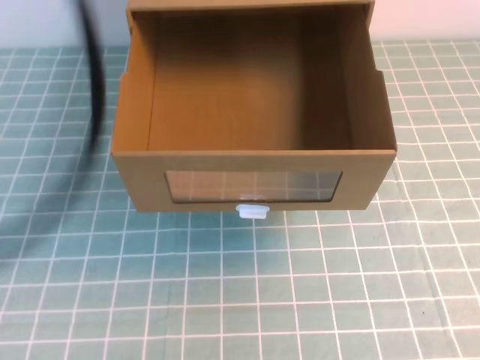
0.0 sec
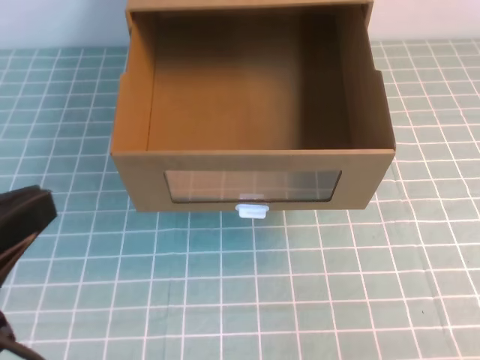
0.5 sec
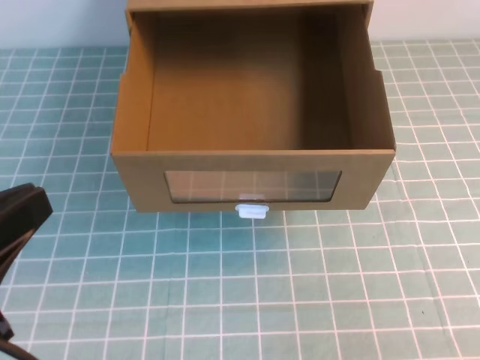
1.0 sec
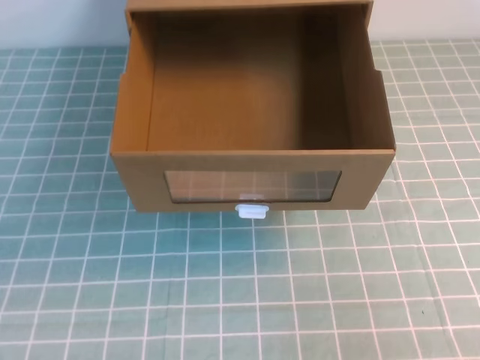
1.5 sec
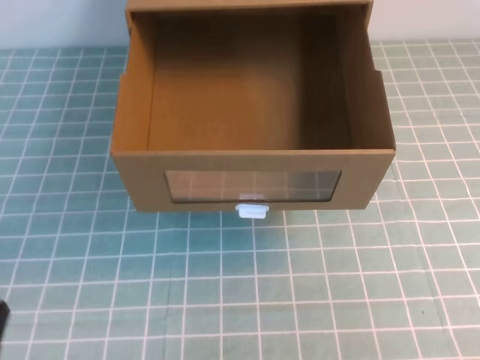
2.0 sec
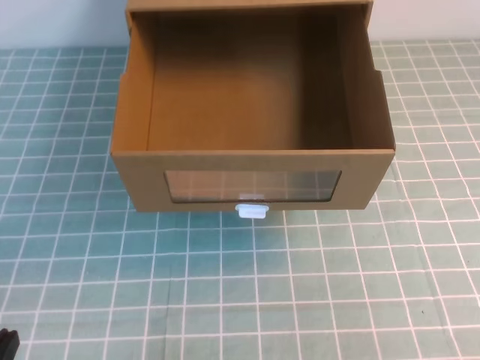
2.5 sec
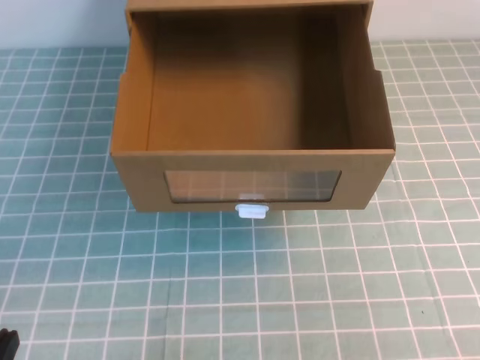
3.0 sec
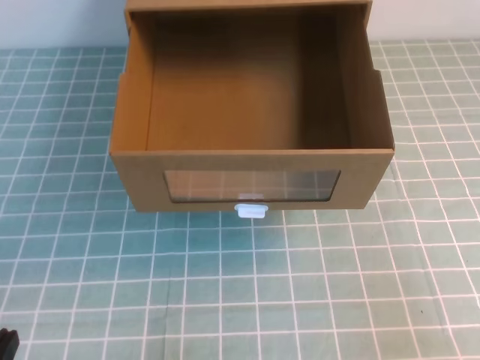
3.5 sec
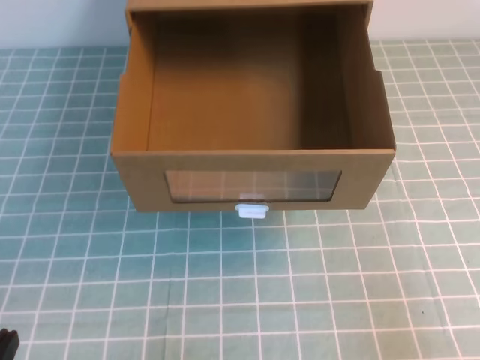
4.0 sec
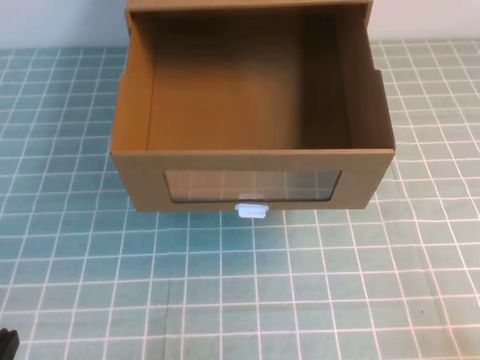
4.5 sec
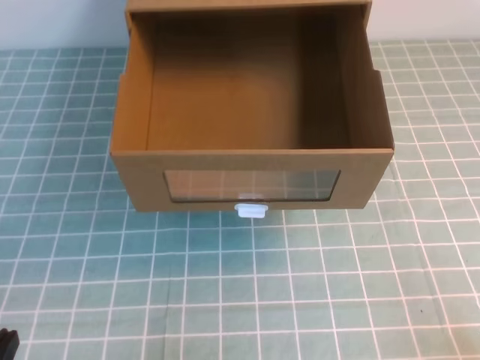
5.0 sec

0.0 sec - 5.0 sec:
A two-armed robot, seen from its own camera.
Task of the whole recording: open the shoebox on the cyan tablecloth.
Step, 0.0 sec - 5.0 sec: Open the shoe box.
0.0 sec - 2.5 sec: The left gripper goes some 35 cm downward; the right gripper travels downward and to the right by some 15 cm.
2.5 sec - 5.0 sec: The right gripper heads downward, covering about 15 cm.

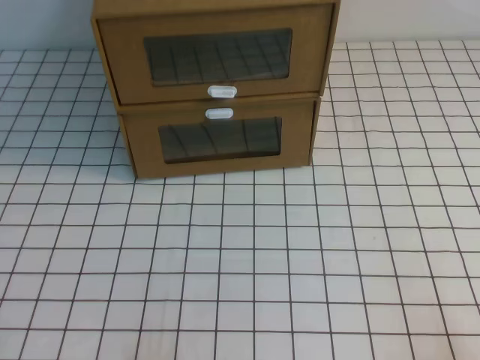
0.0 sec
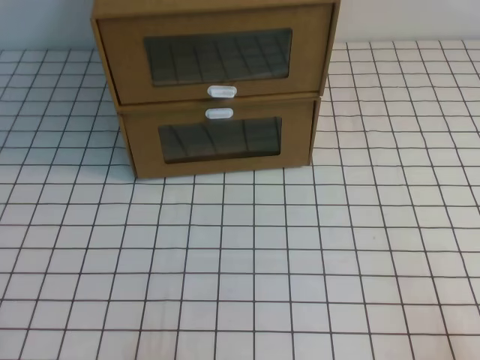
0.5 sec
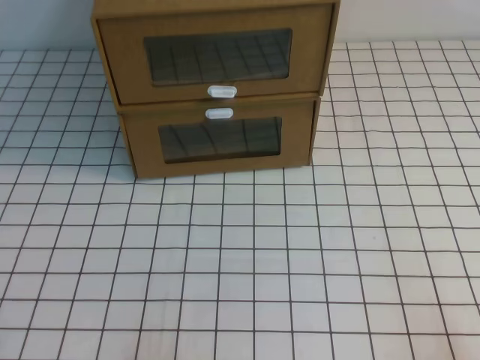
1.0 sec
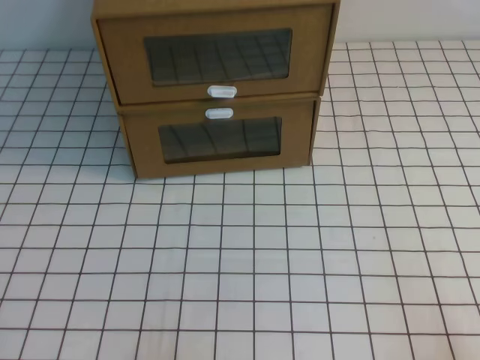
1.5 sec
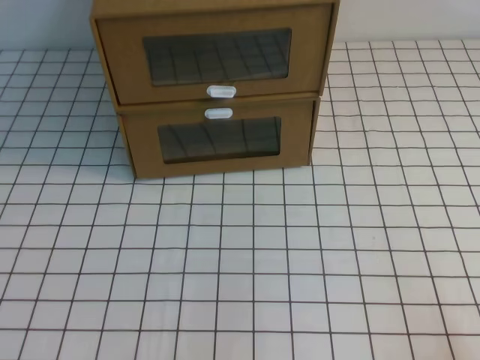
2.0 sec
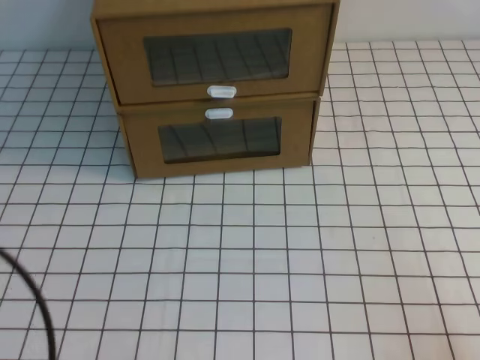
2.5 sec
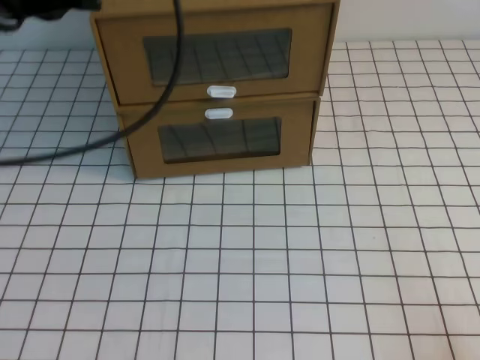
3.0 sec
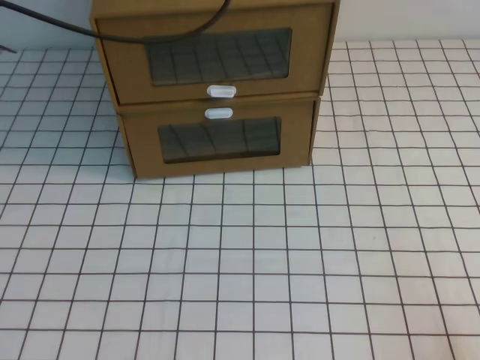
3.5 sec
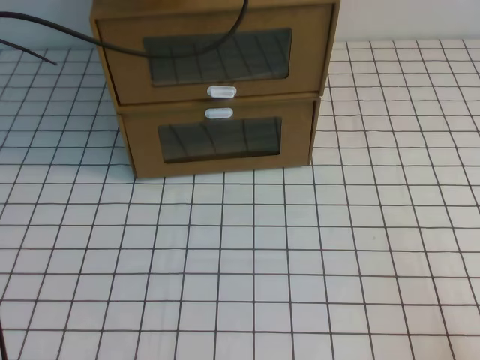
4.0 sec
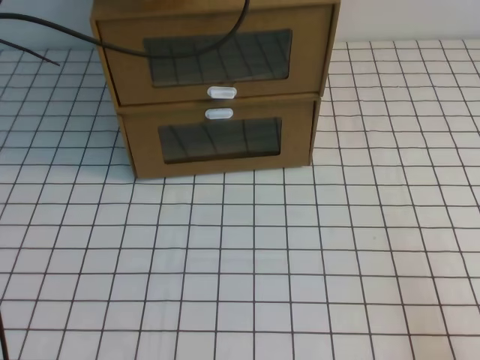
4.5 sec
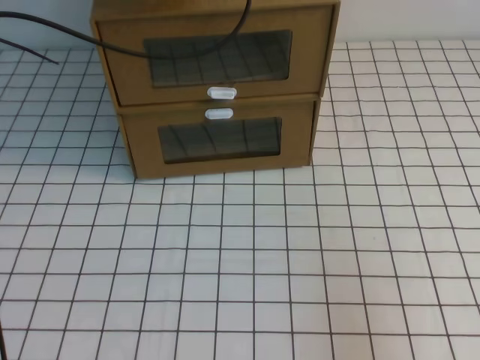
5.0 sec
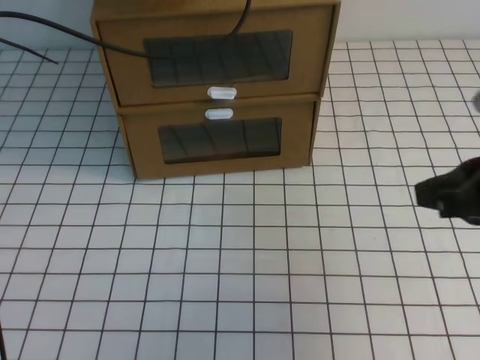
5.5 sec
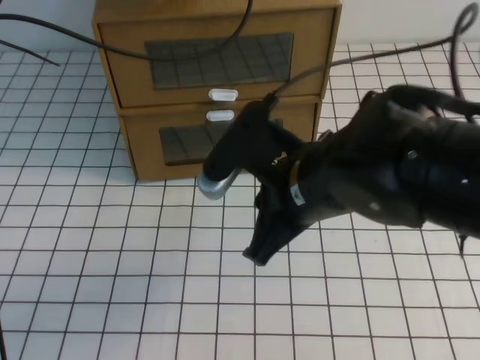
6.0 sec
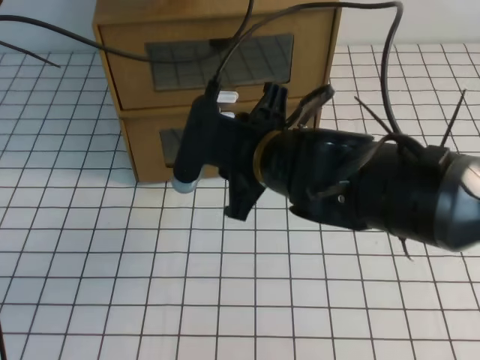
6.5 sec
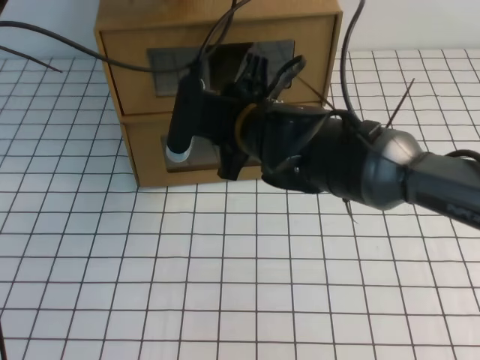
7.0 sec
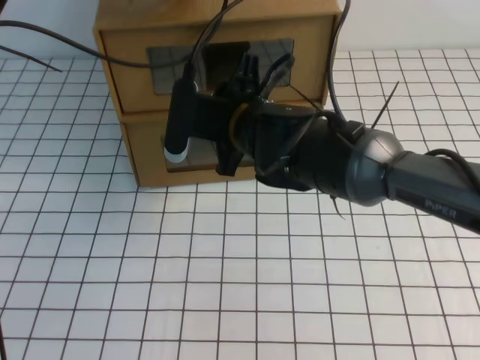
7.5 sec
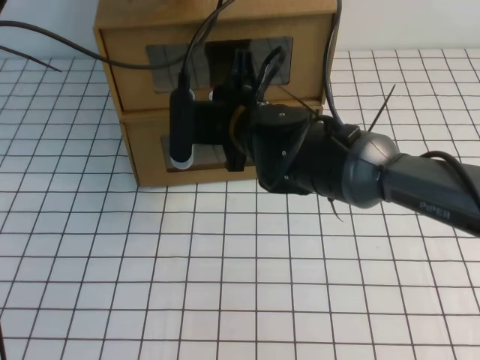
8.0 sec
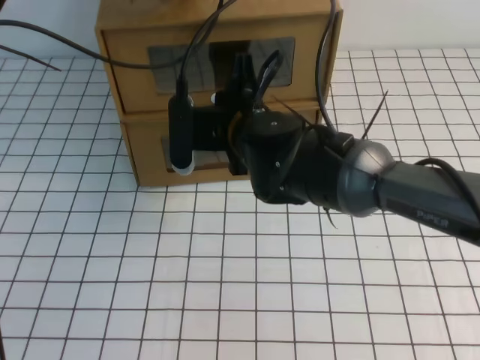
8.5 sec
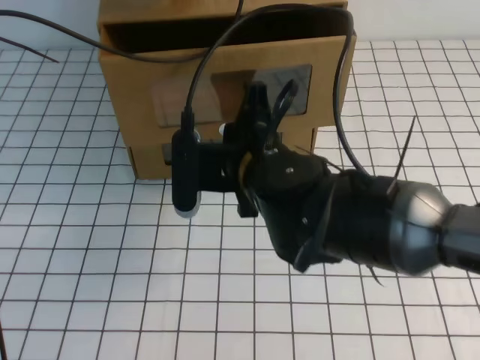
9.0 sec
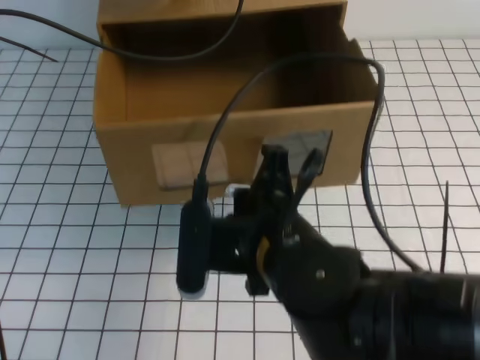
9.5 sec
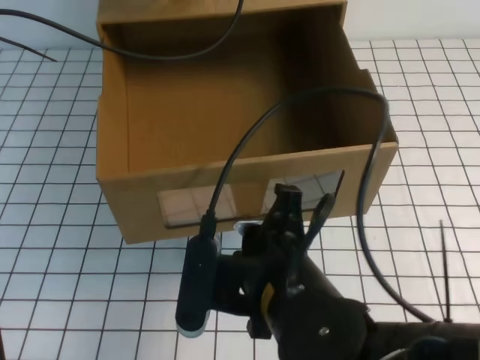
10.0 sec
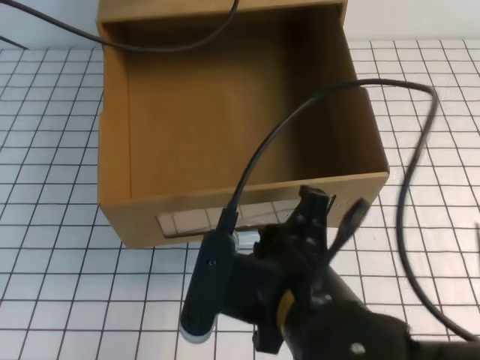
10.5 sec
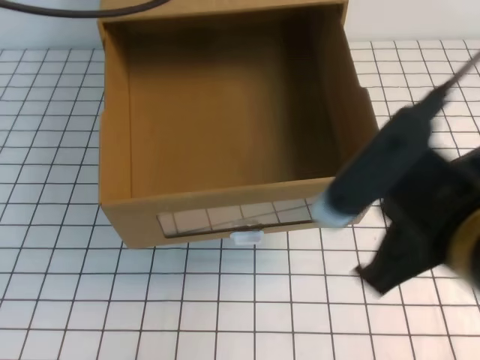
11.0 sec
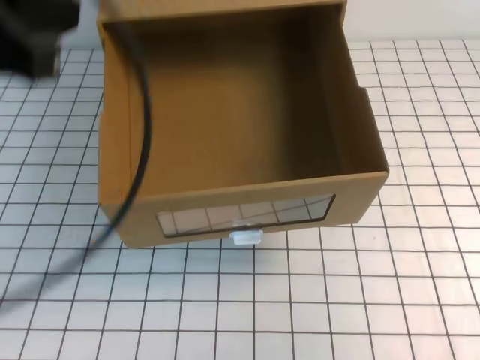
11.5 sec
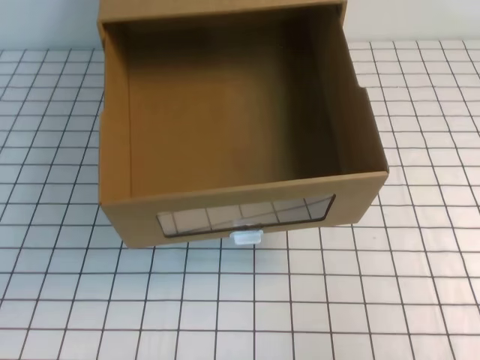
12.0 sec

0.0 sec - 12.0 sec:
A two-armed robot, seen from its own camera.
Task of the whole recording: open the shoebox on the white tablecloth.
2.0 sec - 4.0 sec: The left gripper shifts approximately 40 cm forward and upward.
4.0 sec - 6.0 sec: The right gripper shifts approximately 35 cm to the left, forward and upward.
6.0 sec - 8.0 sec: The right gripper travels forward and to the left by about 15 cm, and opens its fingers.
8.0 sec - 10.0 sec: The right gripper heads backward, covering about 20 cm.
10.0 sec - 12.0 sec: The right gripper is displaced to the right by approximately 25 cm. Meanwhile the left gripper heads backward, covering approximately 40 cm.

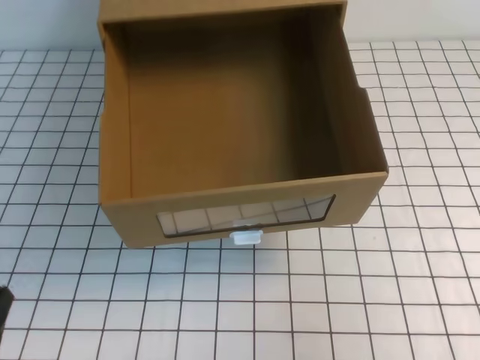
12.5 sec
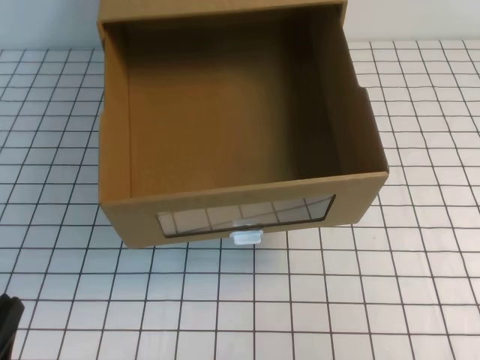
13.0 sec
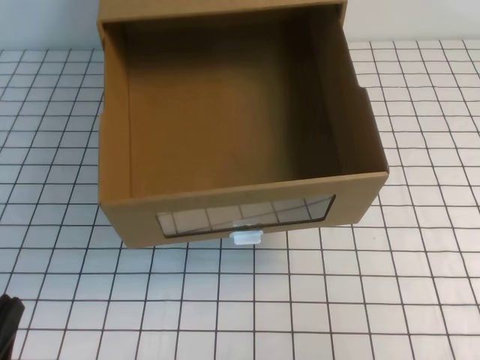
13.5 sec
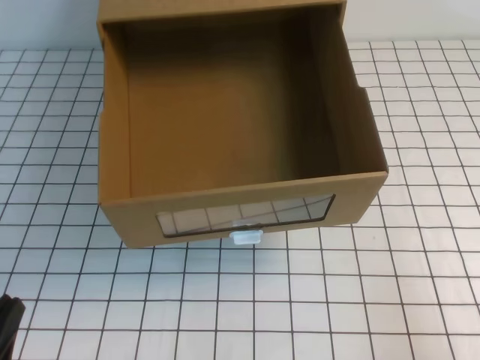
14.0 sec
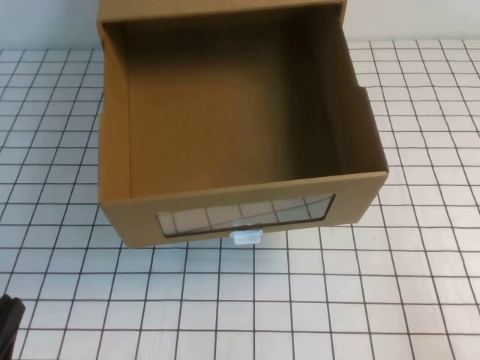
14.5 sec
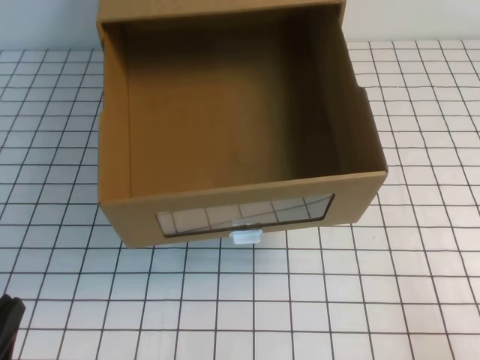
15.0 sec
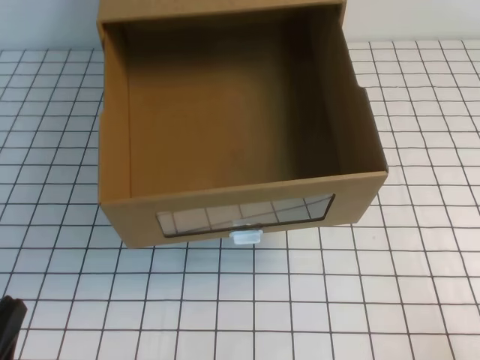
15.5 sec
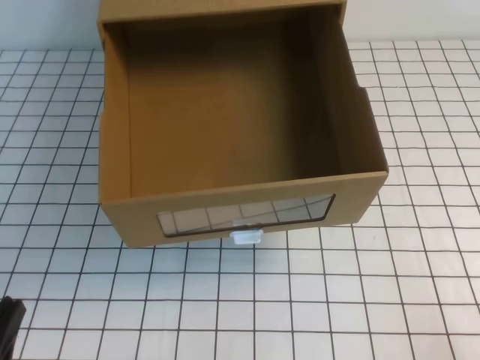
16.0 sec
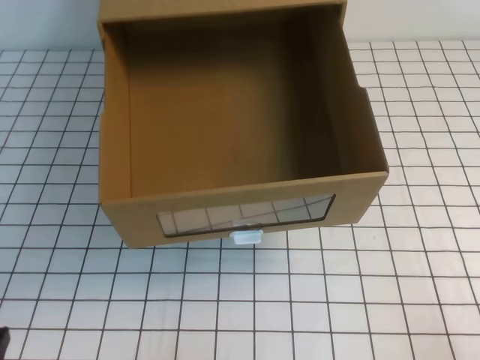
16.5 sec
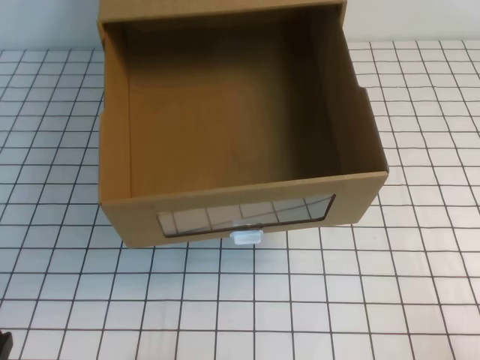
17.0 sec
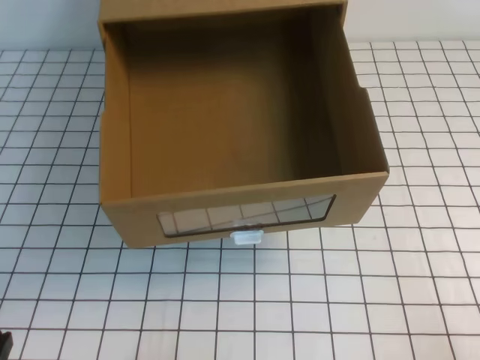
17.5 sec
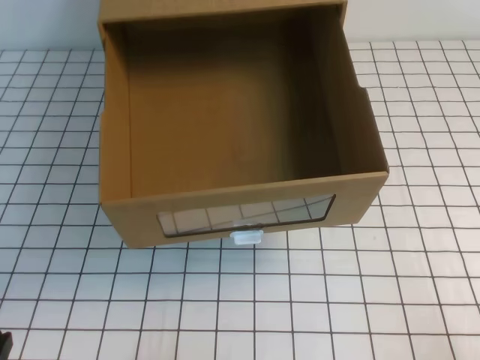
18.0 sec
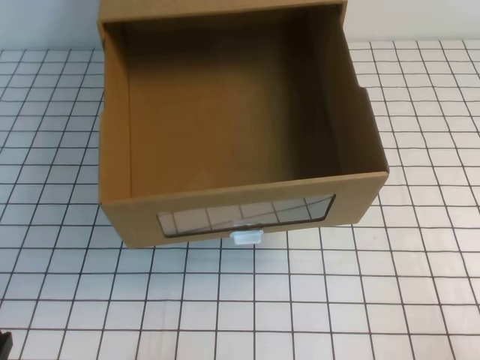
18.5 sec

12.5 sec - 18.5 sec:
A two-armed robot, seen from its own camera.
Task of the whole recording: open the shoebox on the white tablecloth.
12.5 sec - 14.5 sec: The right gripper moves downward, backward and to the right, about 15 cm.

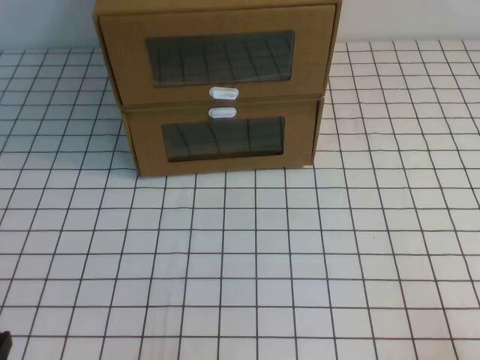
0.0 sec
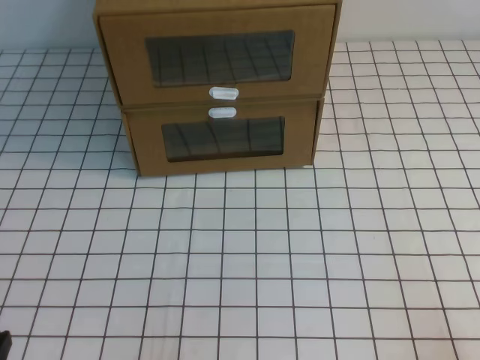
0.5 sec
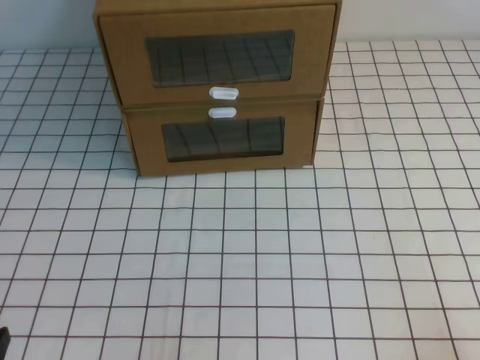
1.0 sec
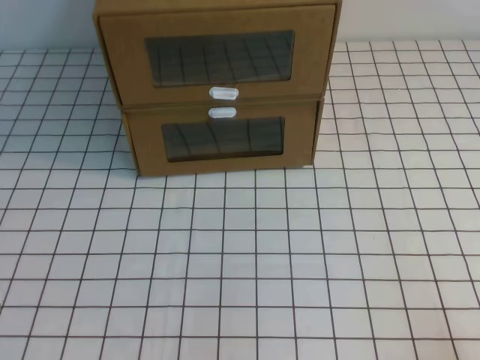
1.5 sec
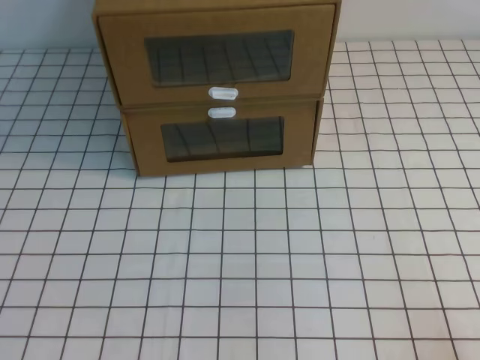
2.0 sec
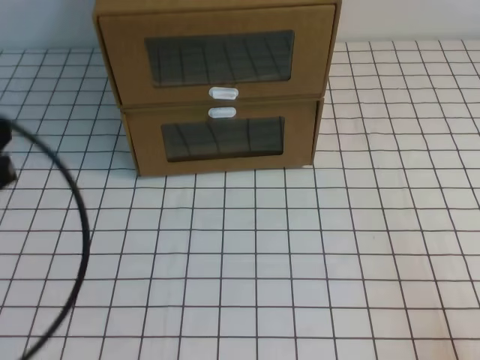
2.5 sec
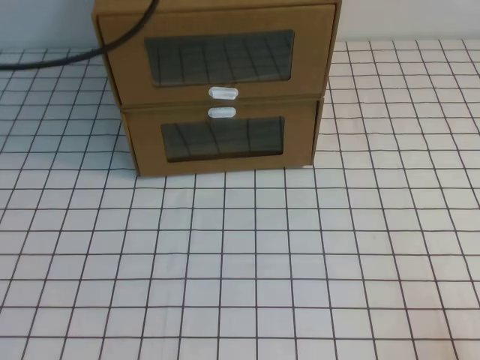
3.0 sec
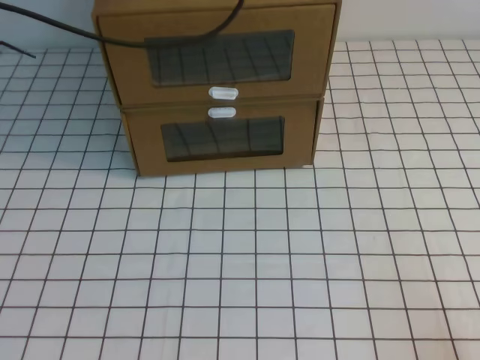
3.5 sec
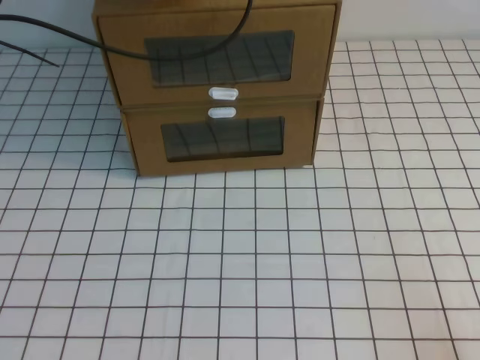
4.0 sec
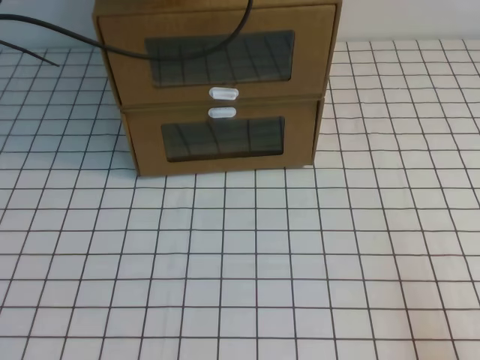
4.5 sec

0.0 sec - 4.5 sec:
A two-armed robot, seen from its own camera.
Task of the whole recording: open the shoebox on the white tablecloth.
2.0 sec - 4.5 sec: The left gripper moves forward and upward, roughly 40 cm.
